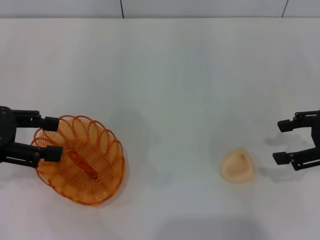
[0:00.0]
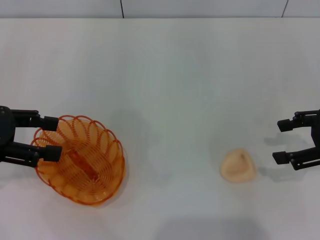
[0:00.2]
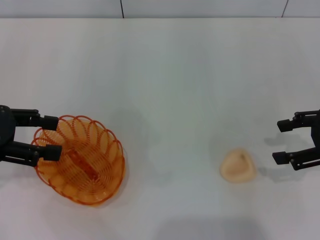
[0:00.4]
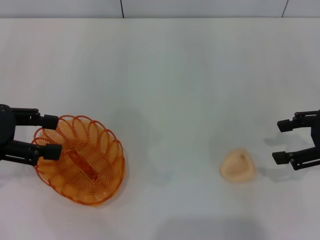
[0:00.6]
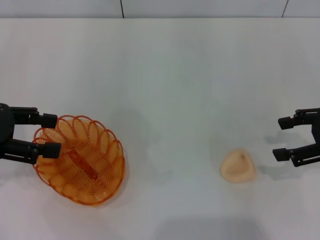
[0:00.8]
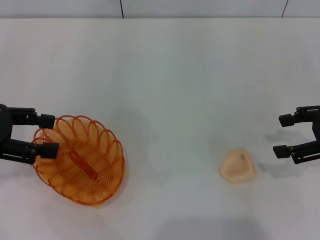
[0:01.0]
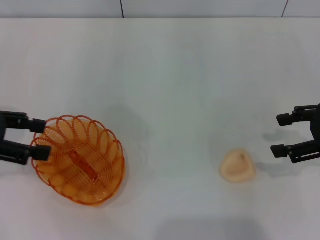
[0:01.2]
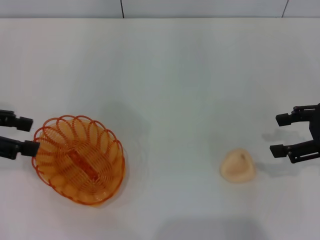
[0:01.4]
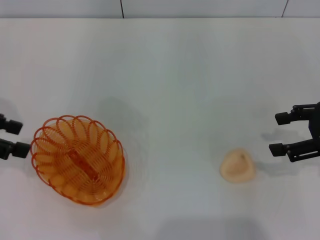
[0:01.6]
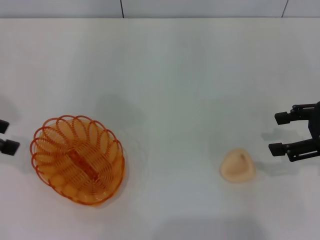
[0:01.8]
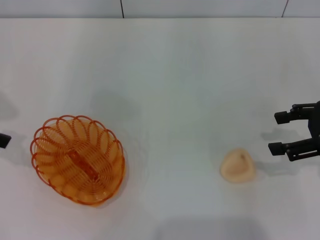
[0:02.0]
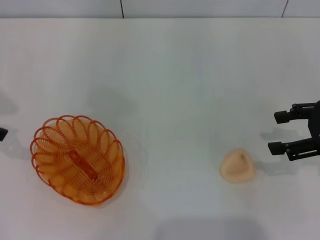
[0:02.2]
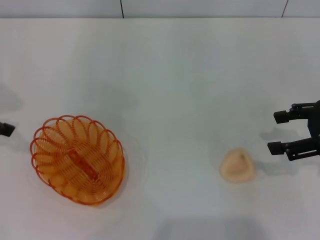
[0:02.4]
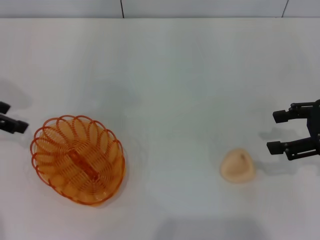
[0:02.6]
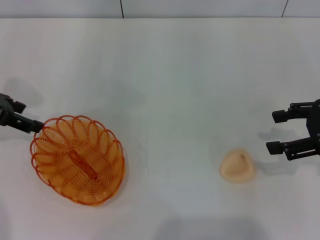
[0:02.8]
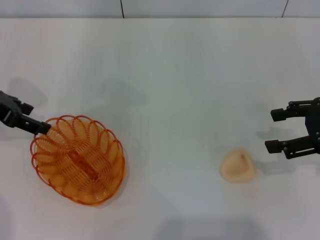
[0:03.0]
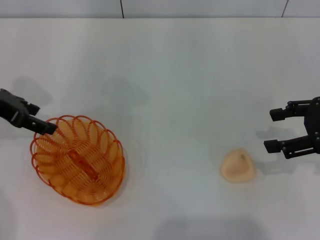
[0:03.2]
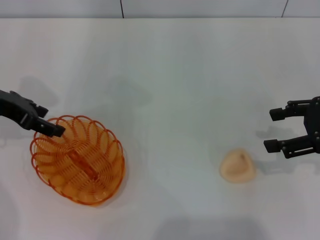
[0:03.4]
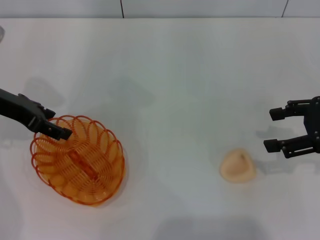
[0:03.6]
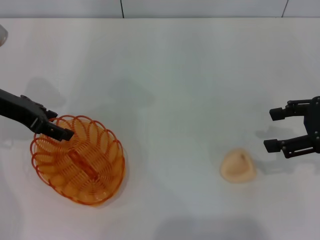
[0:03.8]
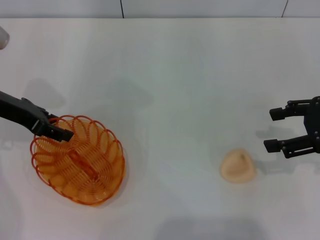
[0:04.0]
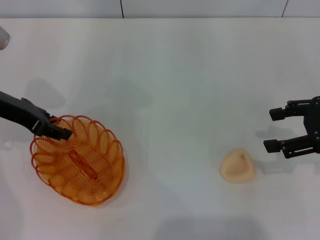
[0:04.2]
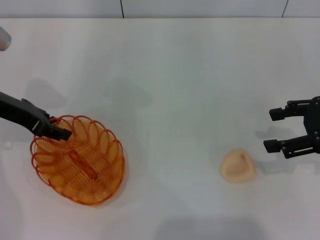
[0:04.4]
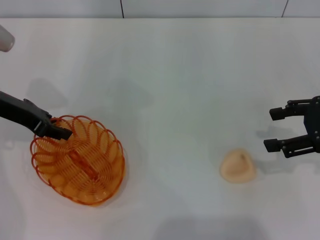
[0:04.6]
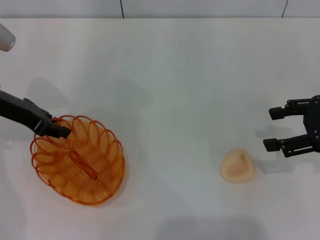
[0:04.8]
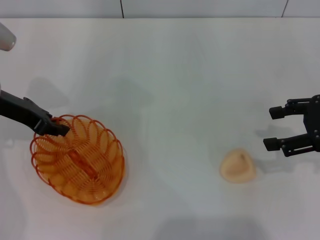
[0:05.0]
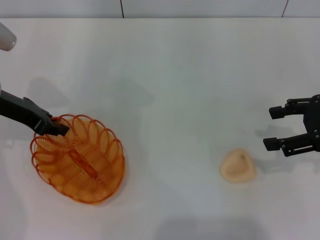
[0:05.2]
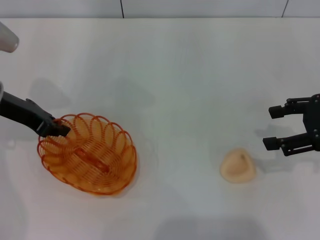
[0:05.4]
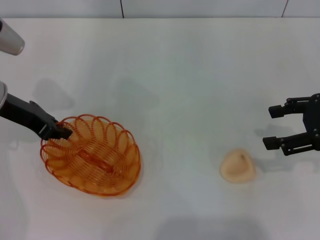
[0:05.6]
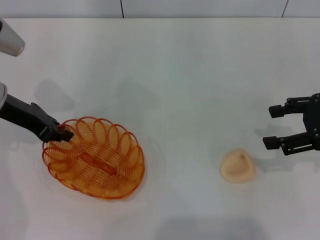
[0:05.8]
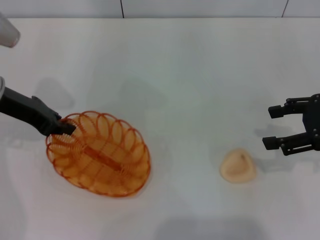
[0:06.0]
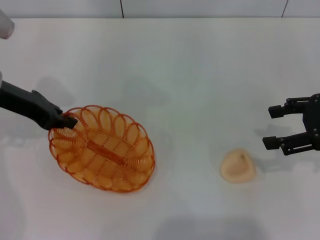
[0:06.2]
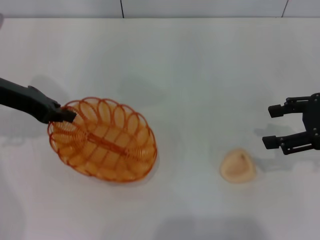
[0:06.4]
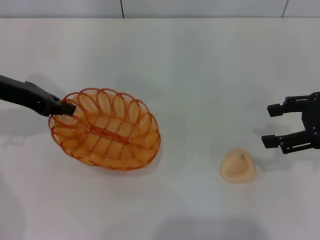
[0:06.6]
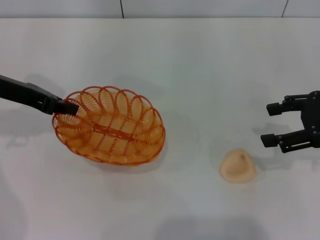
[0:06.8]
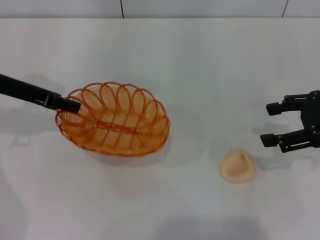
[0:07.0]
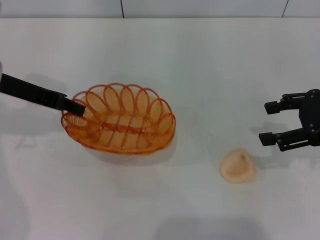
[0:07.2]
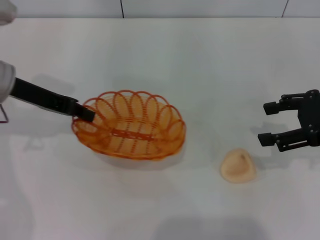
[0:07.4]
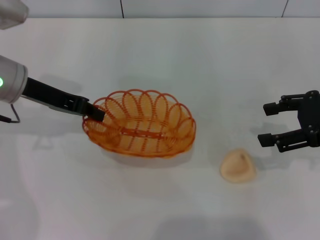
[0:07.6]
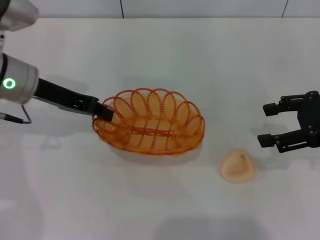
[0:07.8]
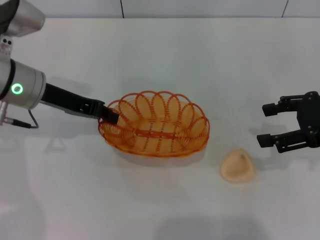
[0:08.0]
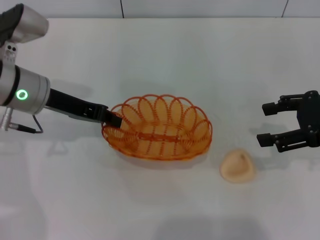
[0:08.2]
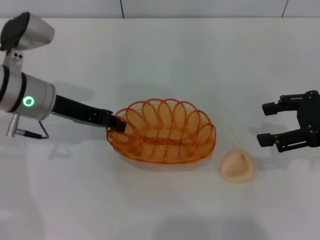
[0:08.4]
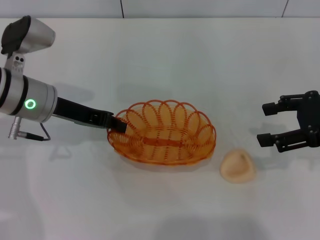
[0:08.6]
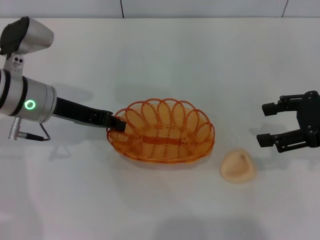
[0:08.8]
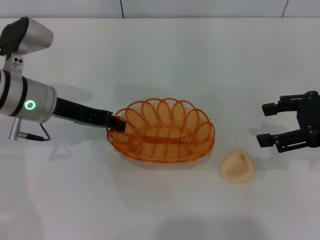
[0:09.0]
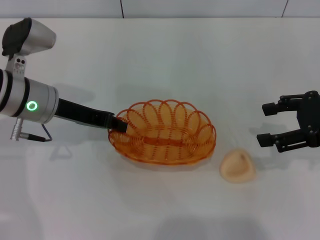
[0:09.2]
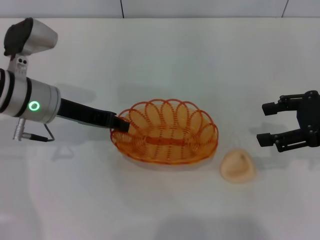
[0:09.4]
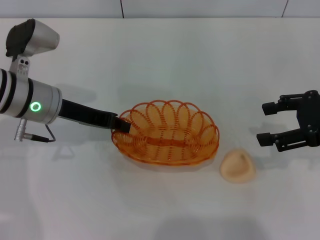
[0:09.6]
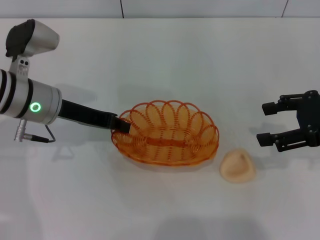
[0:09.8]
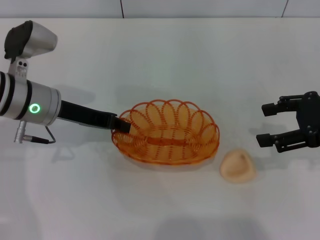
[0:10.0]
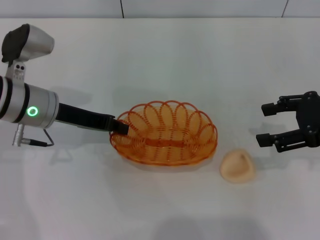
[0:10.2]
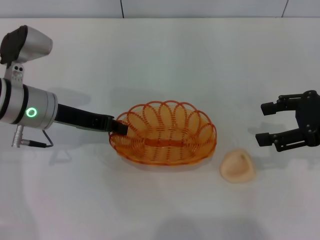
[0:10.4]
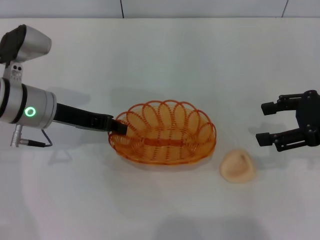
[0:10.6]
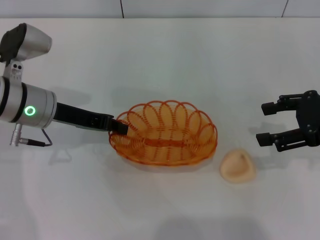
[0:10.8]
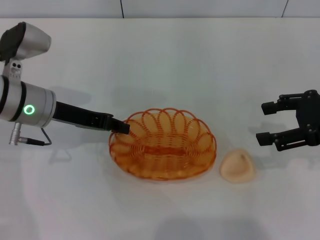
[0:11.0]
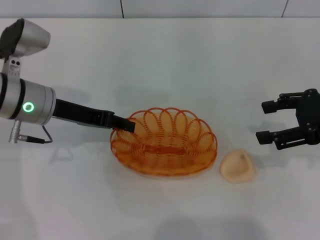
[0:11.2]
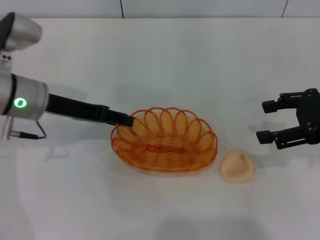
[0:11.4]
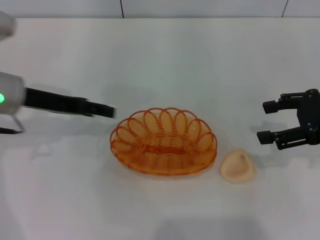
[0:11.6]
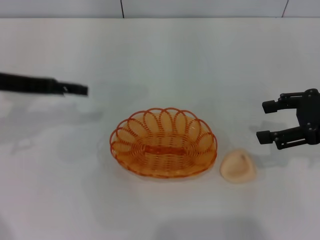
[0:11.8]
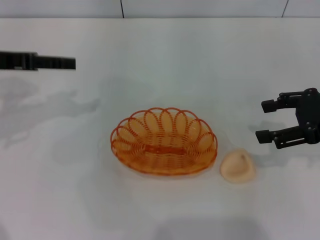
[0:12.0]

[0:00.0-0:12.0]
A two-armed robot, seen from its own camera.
Step, 0:00.0 to 0:07.2: Pick up the basket with the left gripper.
Step, 0:07.4 to 0:11.8: Place the basket in the center of view with the left gripper.
0:00.0 to 0:01.6: The grippers make only small movements.
0:01.6 to 0:03.0: The left gripper moves forward, approximately 5 cm.
0:03.0 to 0:04.4: There are only small adjustments of the grippers.
0:04.4 to 0:06.0: The left gripper closes up.
0:07.6 to 0:09.0: The grippers make only small movements.
0:09.0 to 0:10.4: Both grippers stay about where they are.
0:10.4 to 0:12.0: The left gripper moves to the left and upward, roughly 15 cm, and opens up.

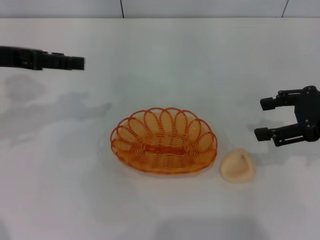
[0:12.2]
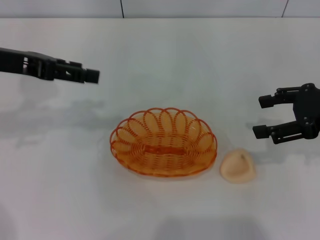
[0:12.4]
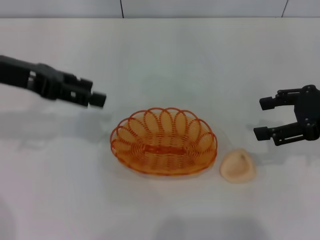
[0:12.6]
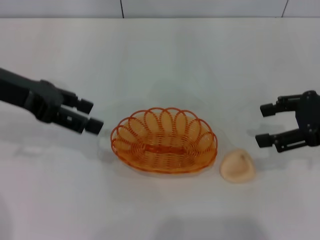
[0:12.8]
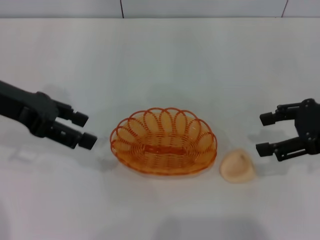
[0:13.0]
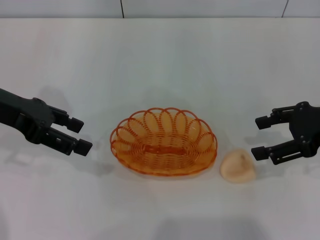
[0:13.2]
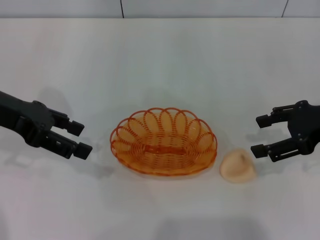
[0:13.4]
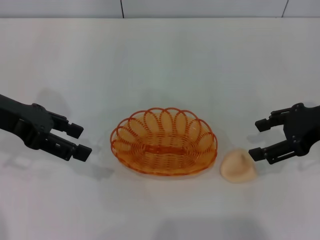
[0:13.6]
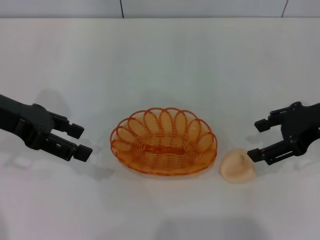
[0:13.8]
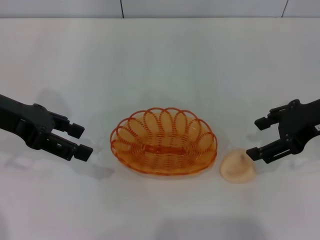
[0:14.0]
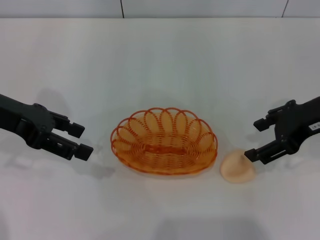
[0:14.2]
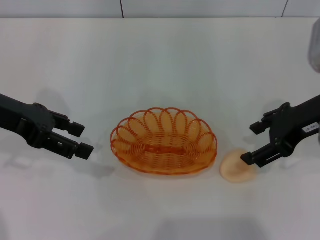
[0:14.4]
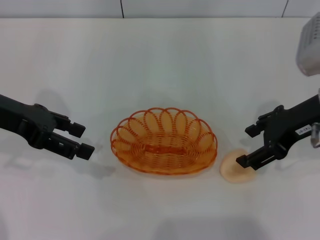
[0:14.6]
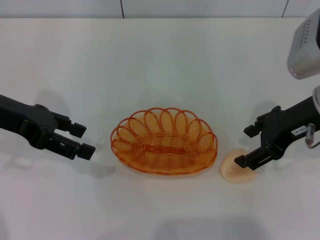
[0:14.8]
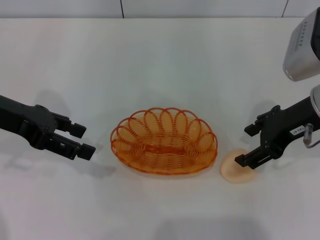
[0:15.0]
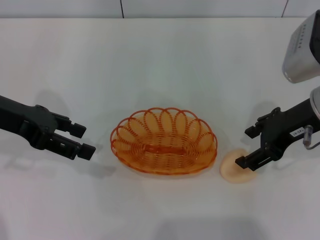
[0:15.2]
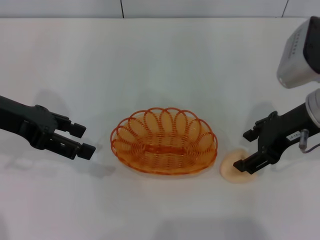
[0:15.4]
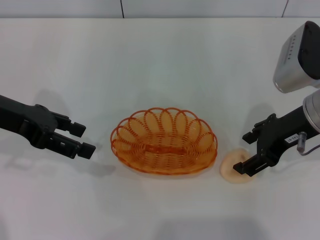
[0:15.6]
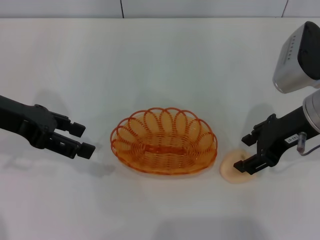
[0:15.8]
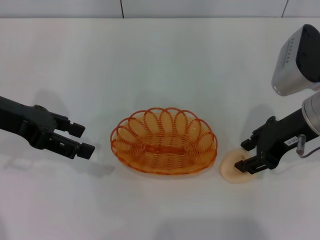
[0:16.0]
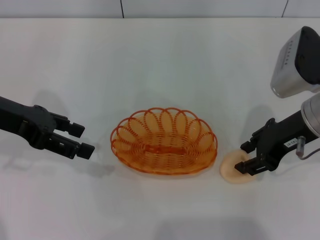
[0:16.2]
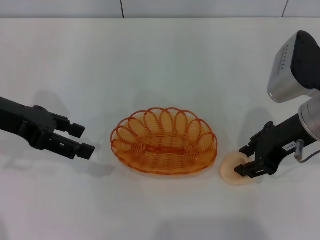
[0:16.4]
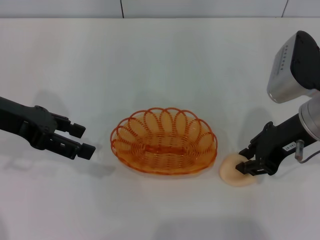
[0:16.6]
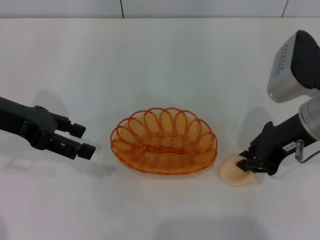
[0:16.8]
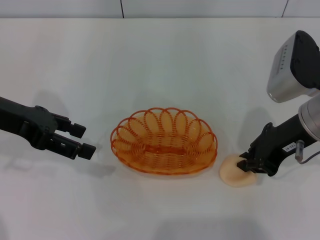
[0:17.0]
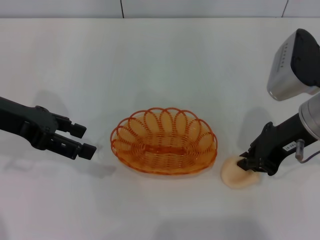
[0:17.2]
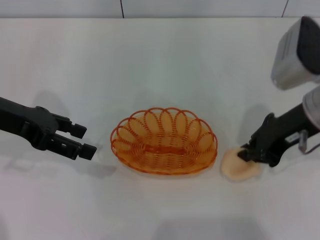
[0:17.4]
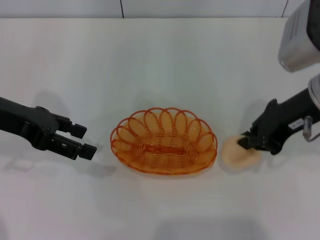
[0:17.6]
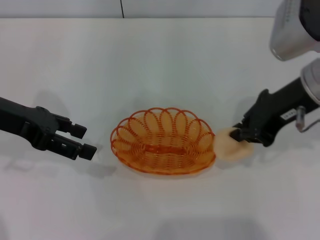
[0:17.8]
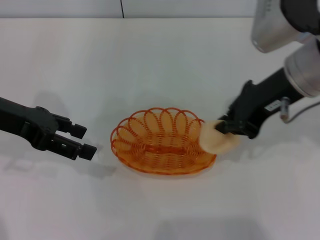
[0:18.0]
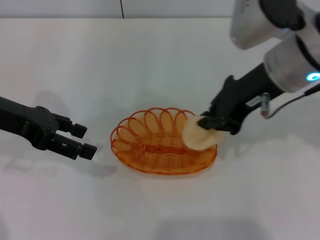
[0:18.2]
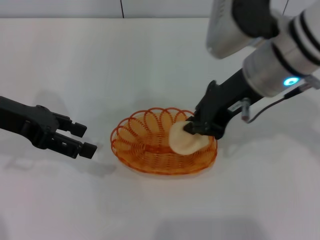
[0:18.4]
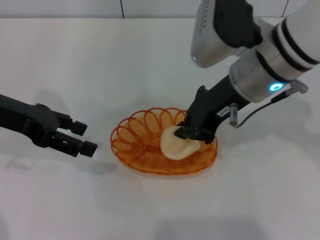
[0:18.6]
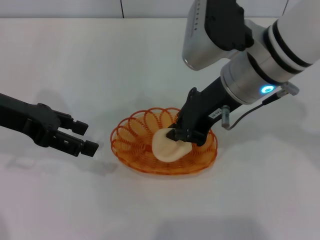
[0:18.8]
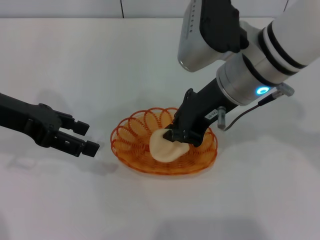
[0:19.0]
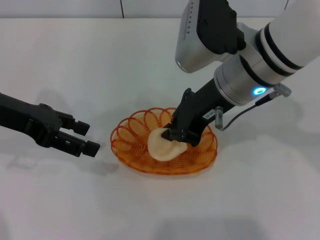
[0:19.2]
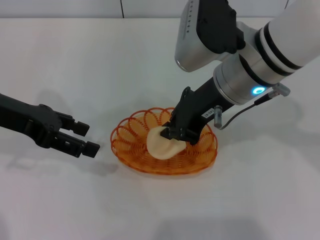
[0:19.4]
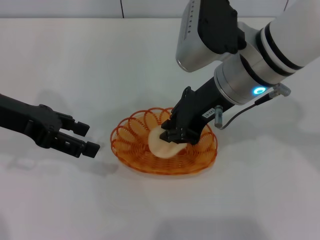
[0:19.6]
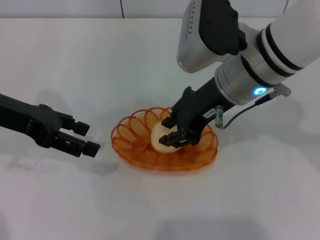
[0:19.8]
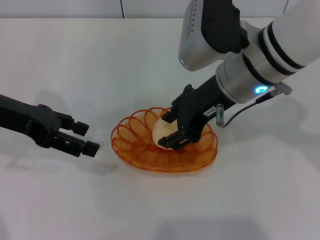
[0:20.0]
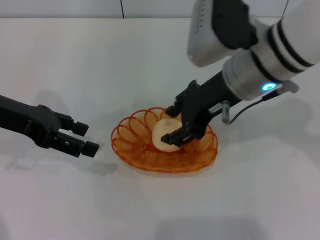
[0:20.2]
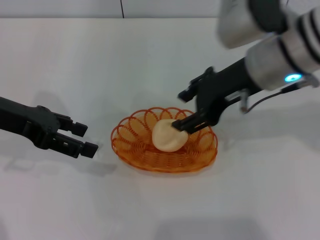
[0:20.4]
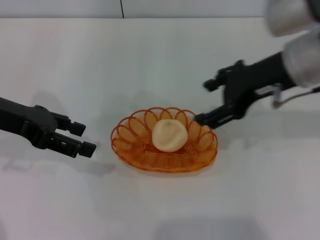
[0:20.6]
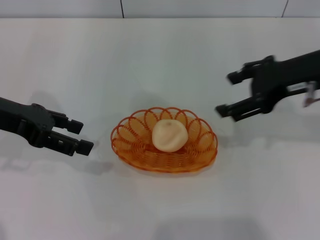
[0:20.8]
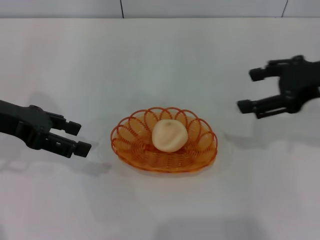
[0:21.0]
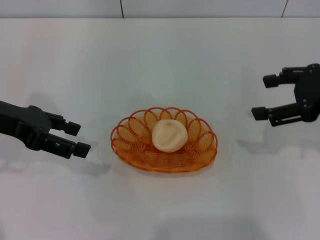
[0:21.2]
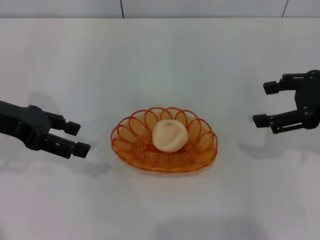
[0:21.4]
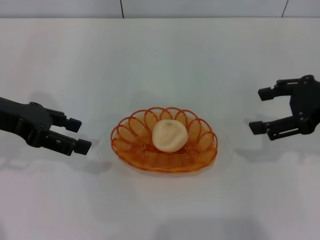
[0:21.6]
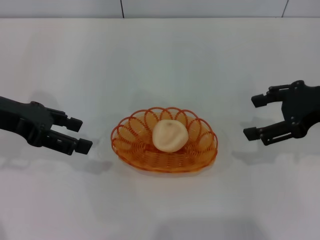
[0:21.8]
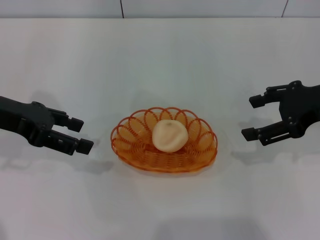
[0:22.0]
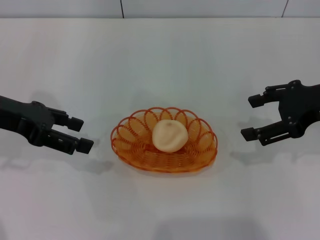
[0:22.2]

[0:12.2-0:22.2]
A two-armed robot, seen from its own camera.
Step, 0:12.2 to 0:17.6: Pick up the egg yolk pastry with the right gripper.
Step, 0:18.0 to 0:20.6: Place the egg yolk pastry into the basket with the right gripper.
0:13.6 to 0:15.0: The right gripper travels to the left by roughly 5 cm.
0:15.0 to 0:16.4: The right gripper closes its fingers.
0:16.4 to 0:18.0: The right gripper shifts about 5 cm upward, and closes.
0:18.0 to 0:19.4: The right gripper moves to the left, approximately 5 cm.
0:19.4 to 0:20.8: The right gripper goes some 15 cm to the right, and opens.
0:20.8 to 0:22.2: The right gripper shifts by roughly 5 cm.
